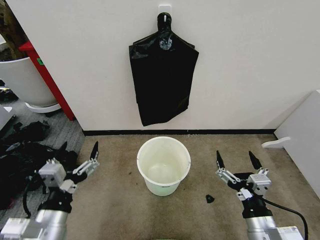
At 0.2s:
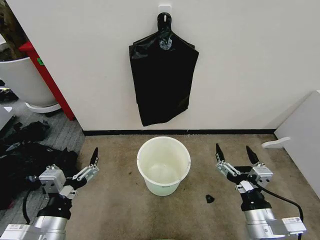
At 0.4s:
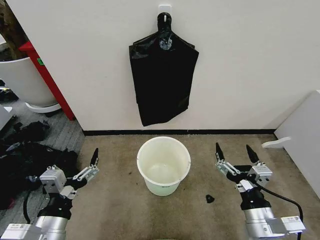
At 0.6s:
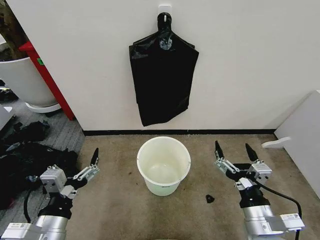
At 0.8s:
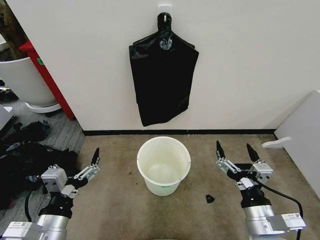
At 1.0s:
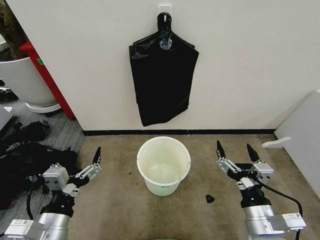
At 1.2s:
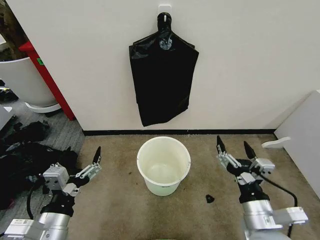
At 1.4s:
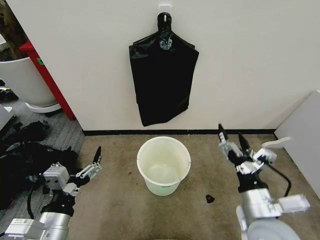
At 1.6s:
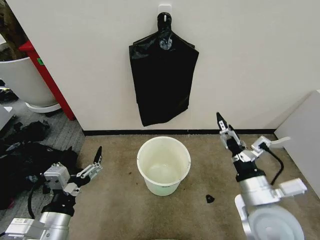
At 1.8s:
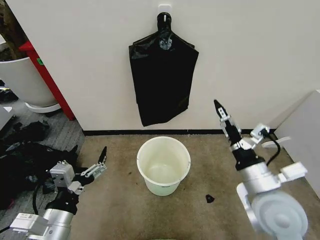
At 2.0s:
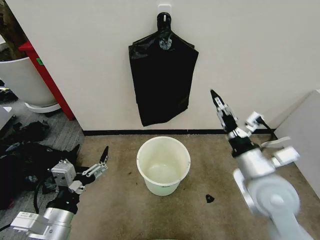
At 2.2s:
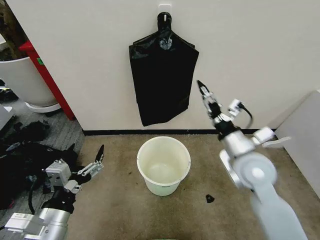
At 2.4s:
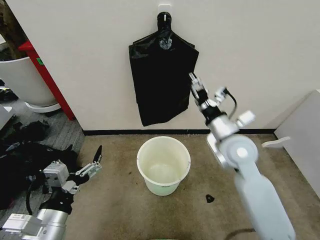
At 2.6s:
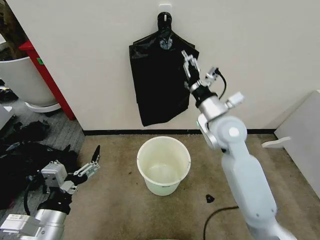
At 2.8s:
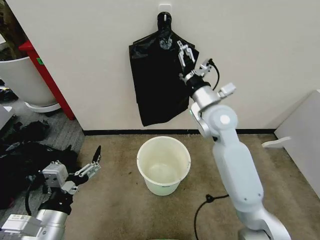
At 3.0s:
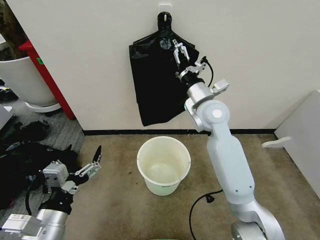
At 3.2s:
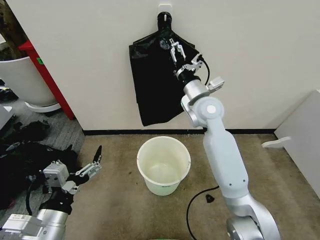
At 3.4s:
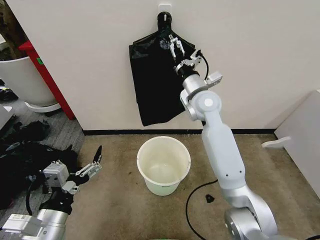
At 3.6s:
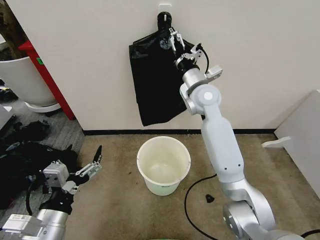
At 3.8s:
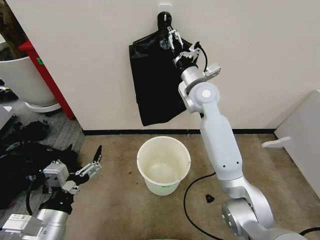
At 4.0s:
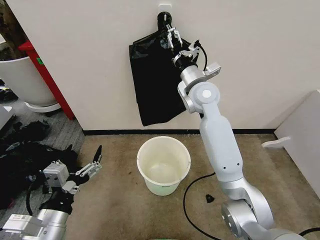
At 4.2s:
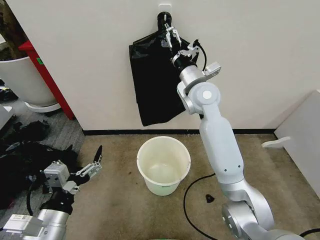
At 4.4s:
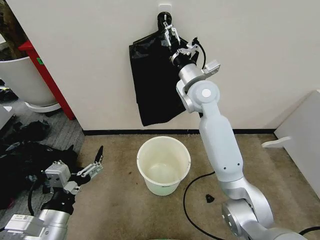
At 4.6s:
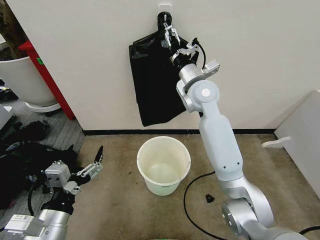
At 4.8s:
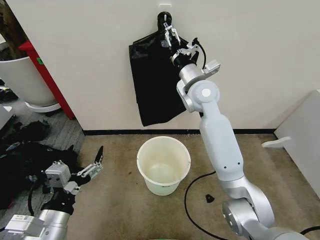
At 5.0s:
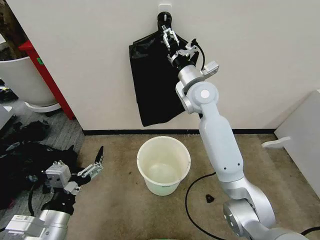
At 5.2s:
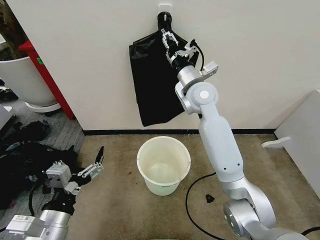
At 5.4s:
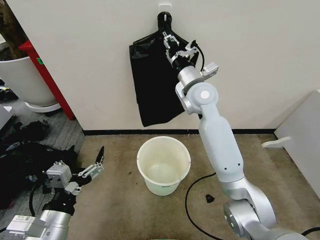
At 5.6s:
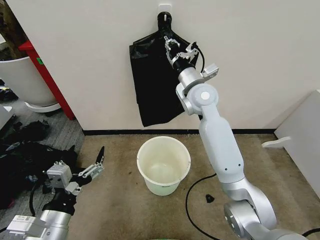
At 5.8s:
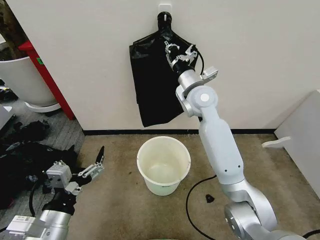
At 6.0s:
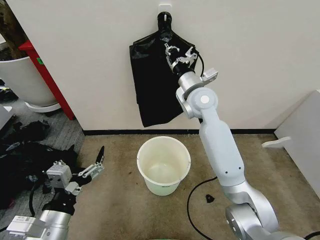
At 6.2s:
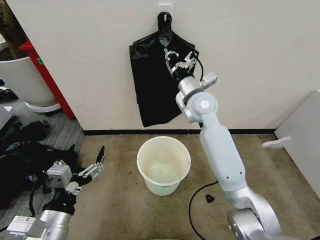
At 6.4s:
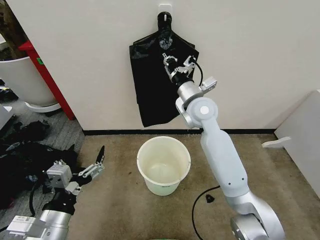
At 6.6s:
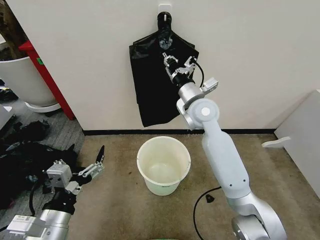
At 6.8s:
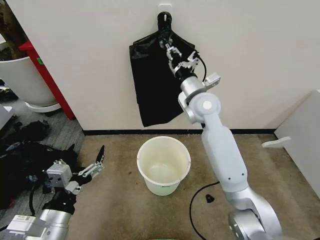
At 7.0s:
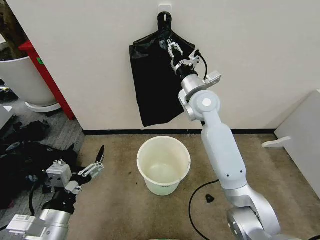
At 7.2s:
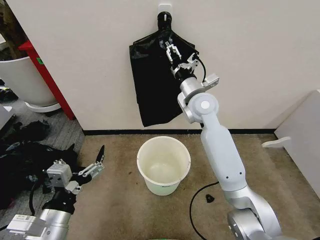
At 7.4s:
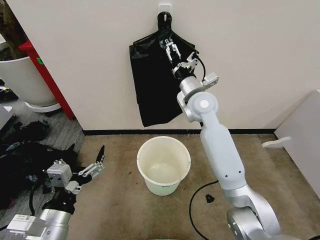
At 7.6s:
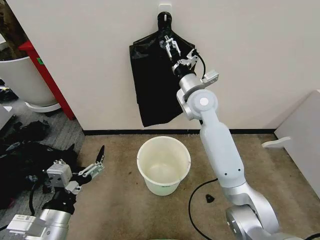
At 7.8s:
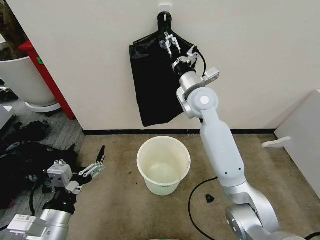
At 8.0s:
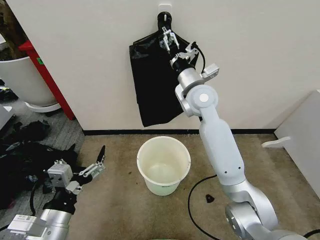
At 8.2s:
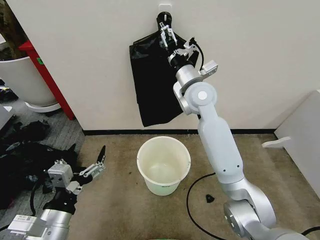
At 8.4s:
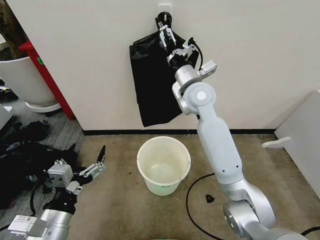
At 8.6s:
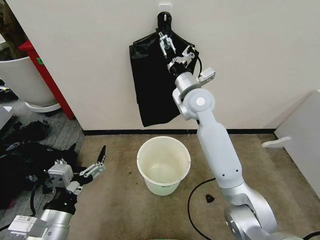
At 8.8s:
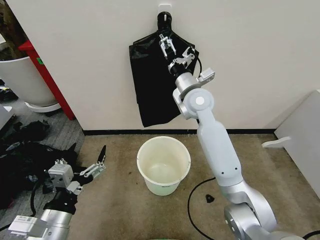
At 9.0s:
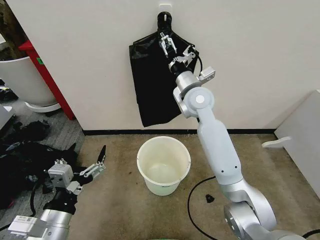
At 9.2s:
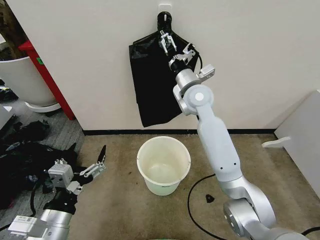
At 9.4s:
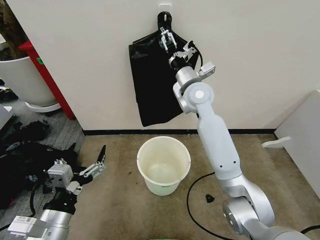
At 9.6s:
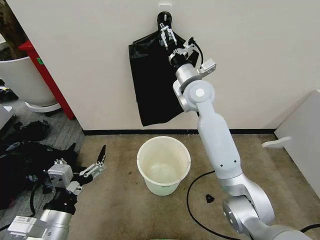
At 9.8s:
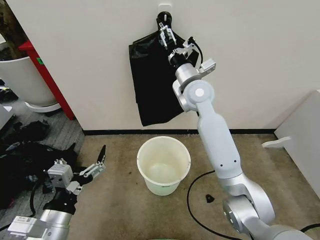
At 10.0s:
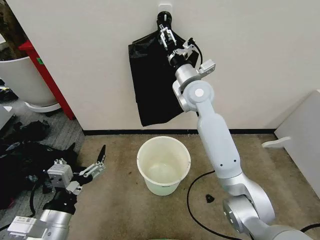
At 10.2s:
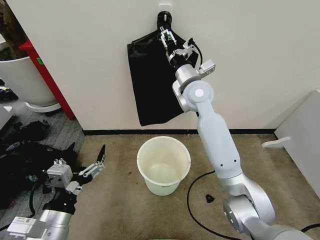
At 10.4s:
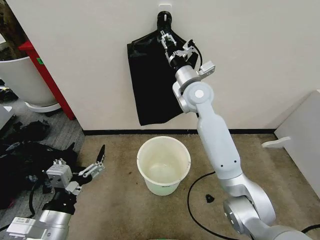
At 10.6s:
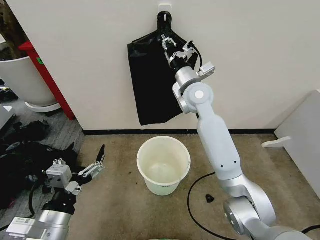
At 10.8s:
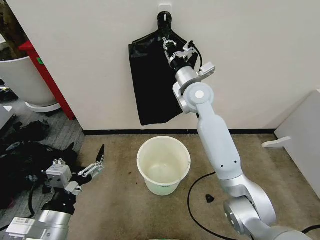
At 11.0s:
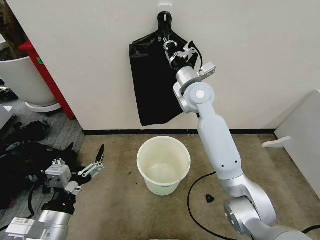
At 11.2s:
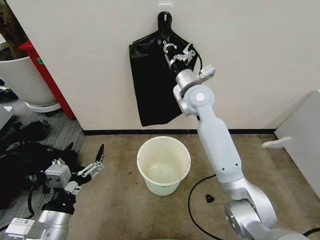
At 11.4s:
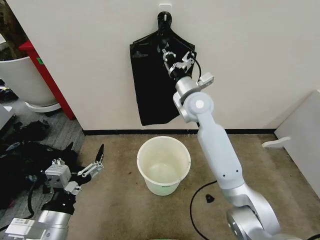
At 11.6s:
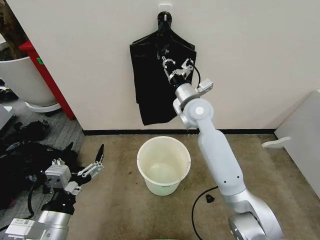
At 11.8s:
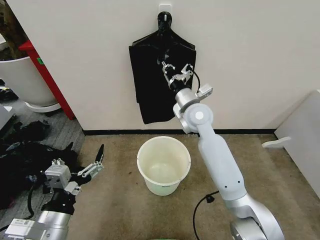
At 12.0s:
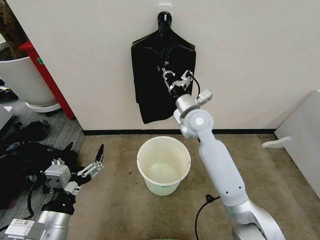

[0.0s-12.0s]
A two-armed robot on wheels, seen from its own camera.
Task of the whole recording: Place the garbage bag over the trash bin.
1.6s to 3.0s: The right gripper travels forward and upward by about 30 cm.
3.0s to 4.4s: The right gripper shifts by approximately 5 cm.
4.4s to 6.0s: The right gripper closes up.
6.0s to 7.6s: The right gripper opens.
7.6s to 9.0s: The grippers make only small movements.
9.0s to 10.4s: The right gripper closes up.
10.4s to 12.0s: The right gripper is displaced downward by approximately 10 cm, and closes its fingers.

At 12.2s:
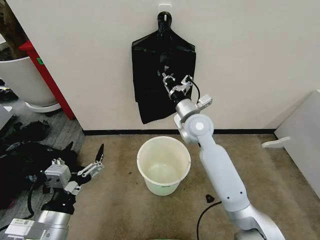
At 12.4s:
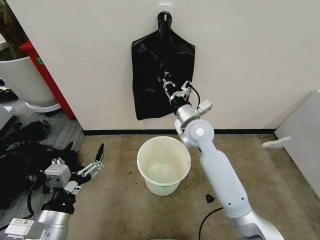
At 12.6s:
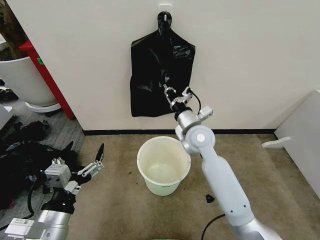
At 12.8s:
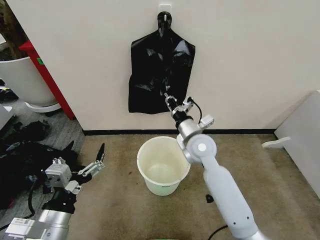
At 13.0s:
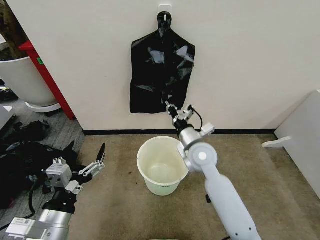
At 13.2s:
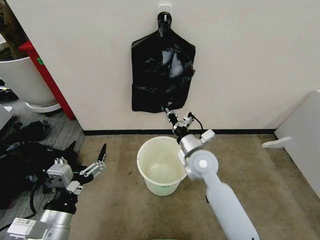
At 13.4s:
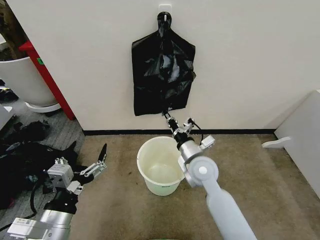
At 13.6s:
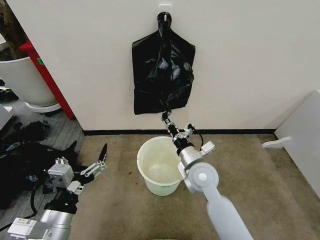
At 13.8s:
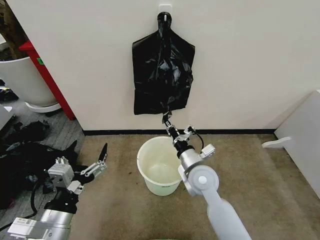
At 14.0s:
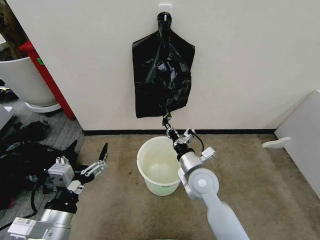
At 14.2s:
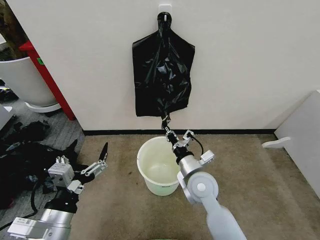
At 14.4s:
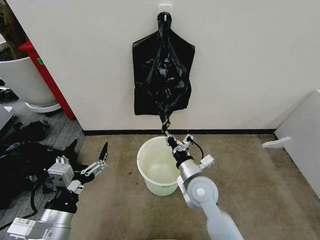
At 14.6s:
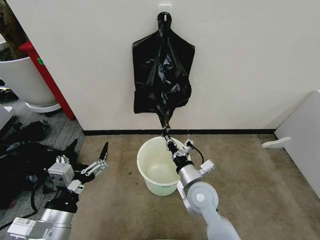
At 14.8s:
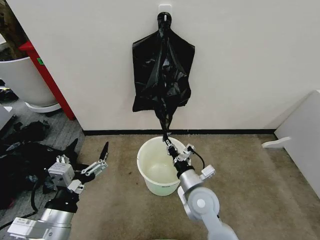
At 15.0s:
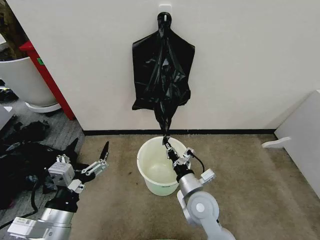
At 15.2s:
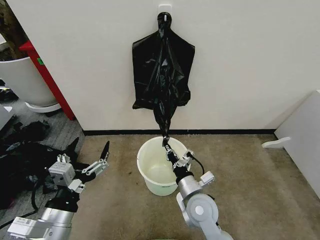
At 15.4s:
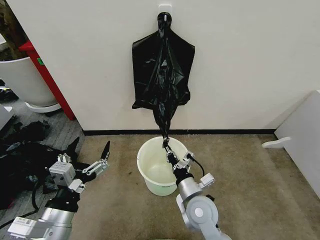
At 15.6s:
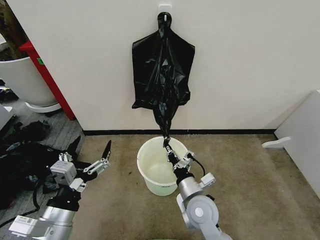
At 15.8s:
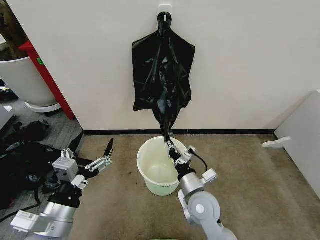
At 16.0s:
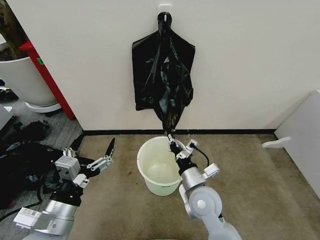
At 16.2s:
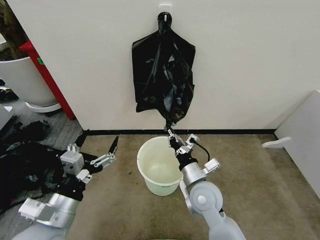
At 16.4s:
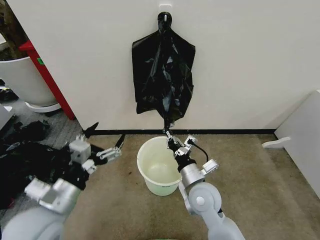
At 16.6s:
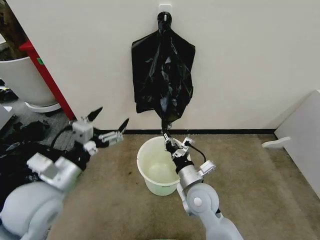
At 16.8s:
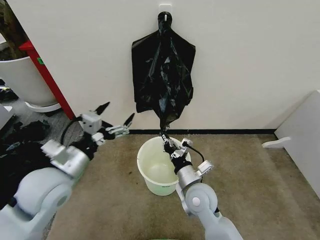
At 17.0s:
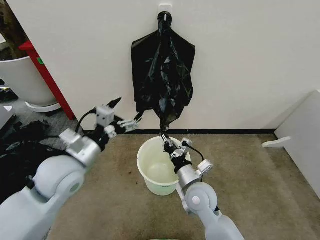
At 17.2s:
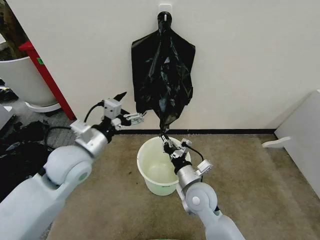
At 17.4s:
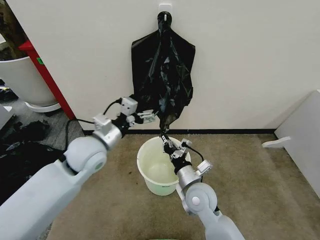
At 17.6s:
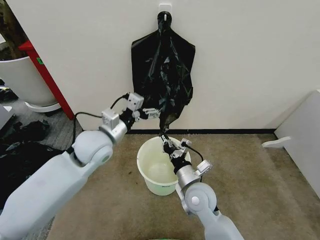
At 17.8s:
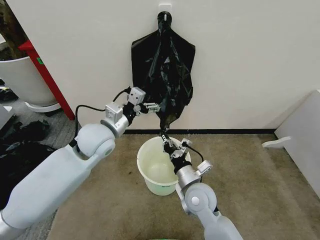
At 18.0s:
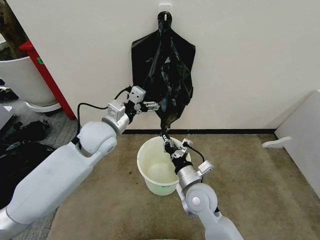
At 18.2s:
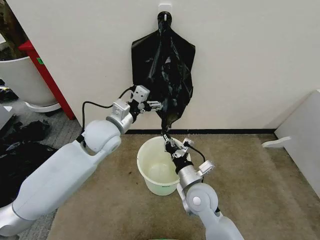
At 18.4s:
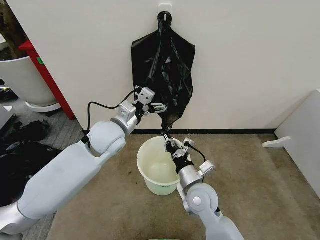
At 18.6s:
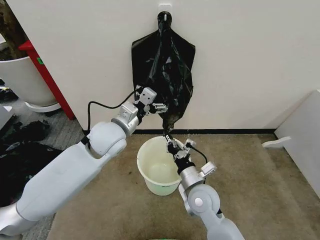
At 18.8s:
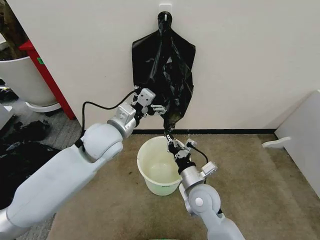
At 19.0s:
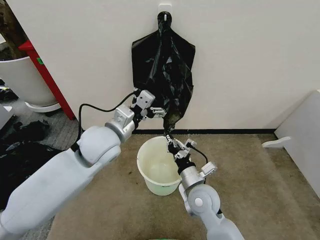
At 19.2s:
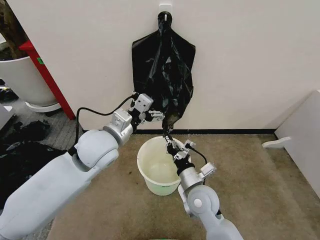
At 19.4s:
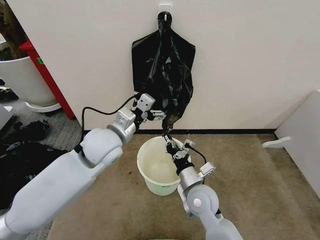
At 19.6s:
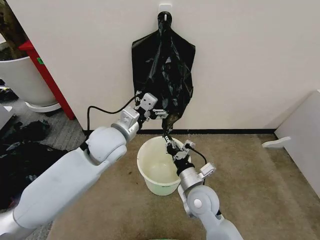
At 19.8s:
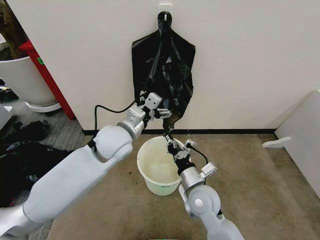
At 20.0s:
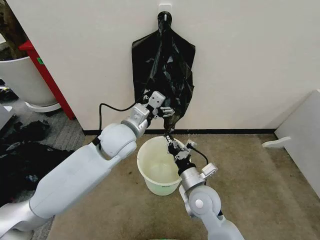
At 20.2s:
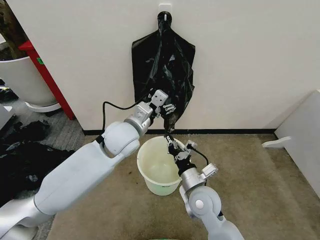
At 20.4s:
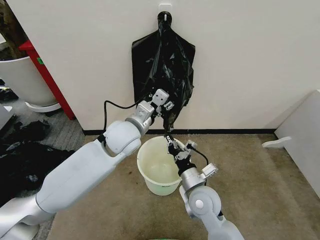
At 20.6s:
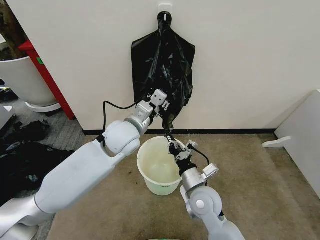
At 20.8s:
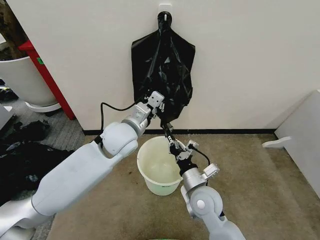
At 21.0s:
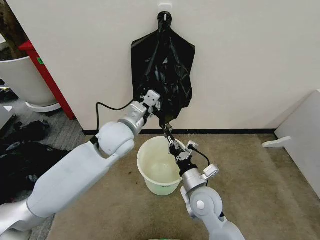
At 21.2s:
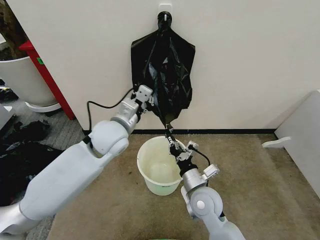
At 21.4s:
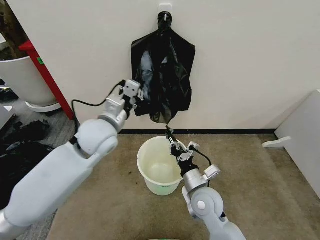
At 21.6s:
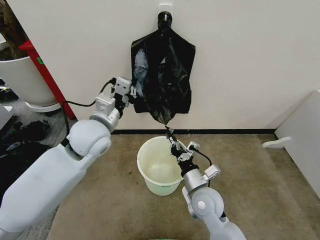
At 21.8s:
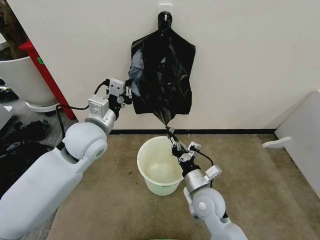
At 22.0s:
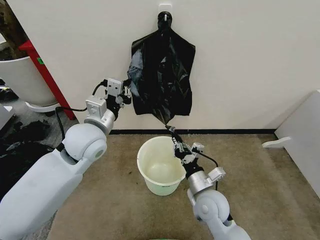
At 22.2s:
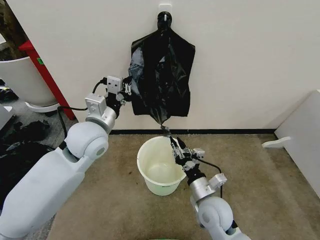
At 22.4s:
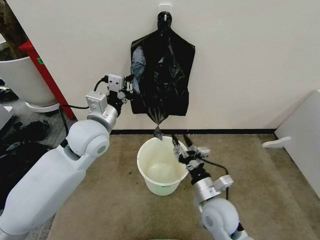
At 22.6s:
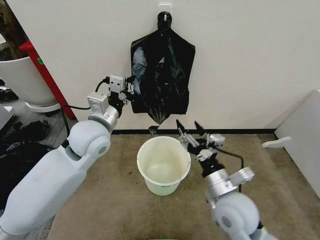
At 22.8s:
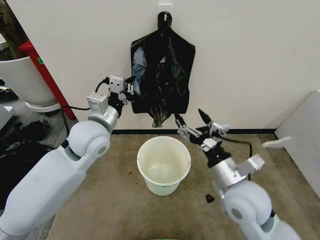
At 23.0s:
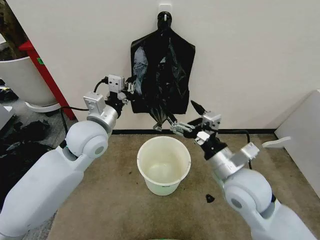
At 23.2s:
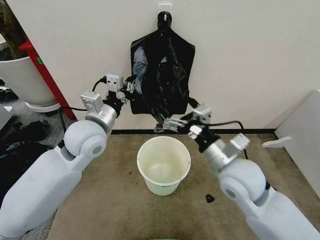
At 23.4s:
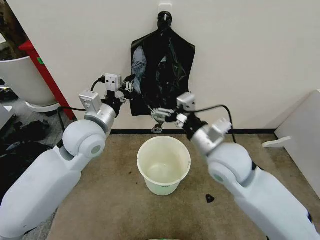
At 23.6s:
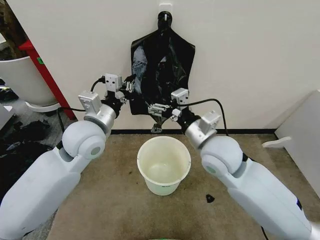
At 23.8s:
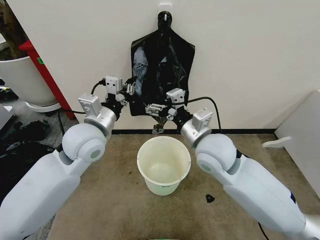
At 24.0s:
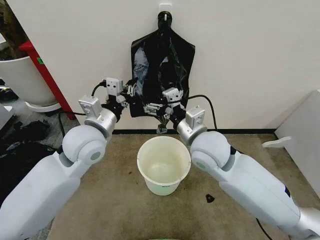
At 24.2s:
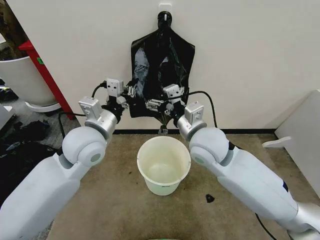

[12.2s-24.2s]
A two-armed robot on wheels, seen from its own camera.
Task of the whole recording: Place the garbage bag over the trash bin.
12.2s to 13.8s: The right gripper heads backward and downward, covering roughly 15 cm.
13.8s to 15.2s: The right gripper travels backward and downward by some 10 cm.
15.2s to 16.6s: The left gripper travels forward and upward by some 10 cm.
16.6s to 18.2s: The left gripper heads forward and to the right, covering roughly 20 cm.
18.2s to 19.8s: The grippers make only small movements.
19.8s to 21.2s: The left gripper closes up.
21.2s to 22.6s: The right gripper moves upward, some 5 cm, and opens up.
22.6s to 24.2s: The right gripper moves forward, upward and to the left, approximately 20 cm.
